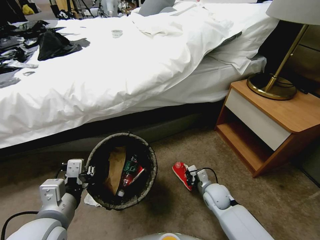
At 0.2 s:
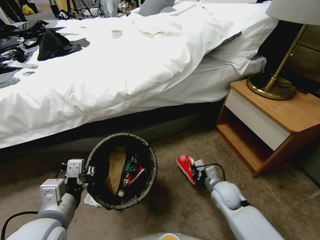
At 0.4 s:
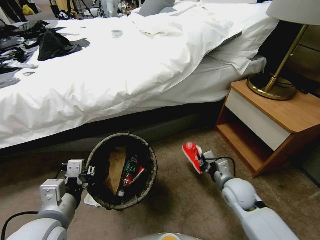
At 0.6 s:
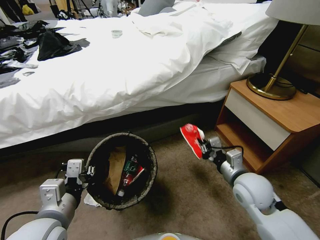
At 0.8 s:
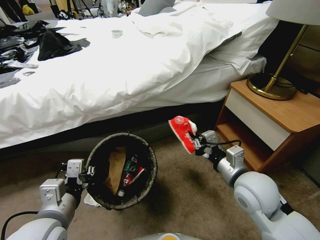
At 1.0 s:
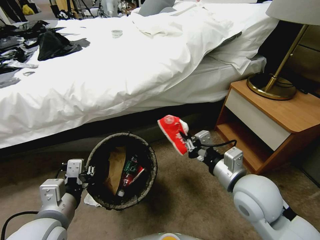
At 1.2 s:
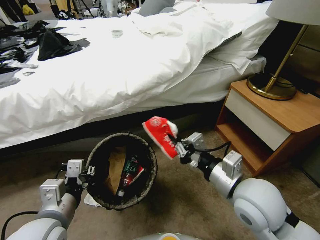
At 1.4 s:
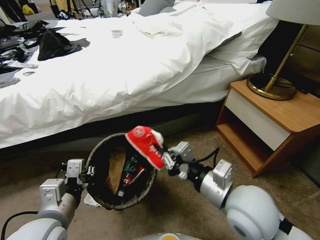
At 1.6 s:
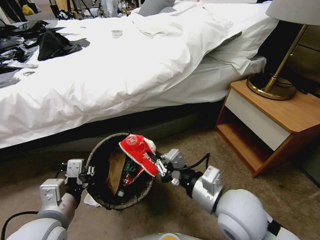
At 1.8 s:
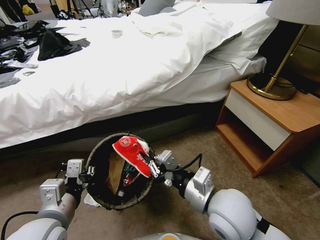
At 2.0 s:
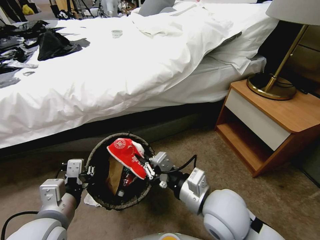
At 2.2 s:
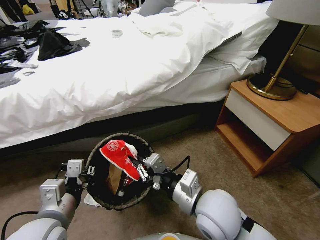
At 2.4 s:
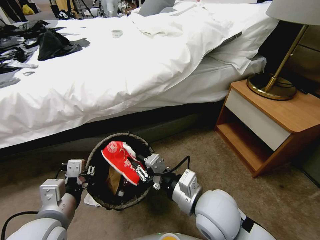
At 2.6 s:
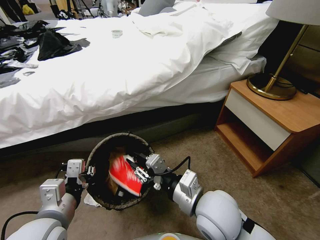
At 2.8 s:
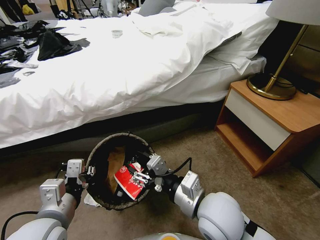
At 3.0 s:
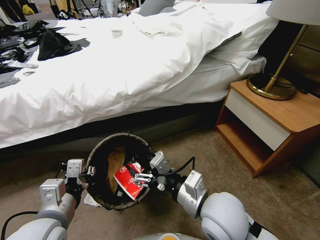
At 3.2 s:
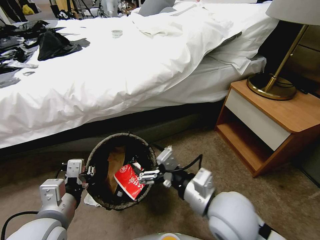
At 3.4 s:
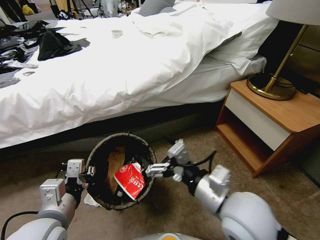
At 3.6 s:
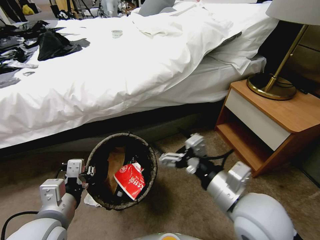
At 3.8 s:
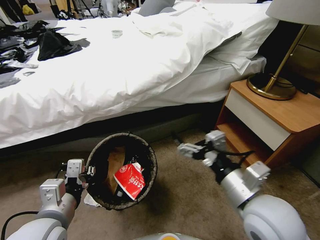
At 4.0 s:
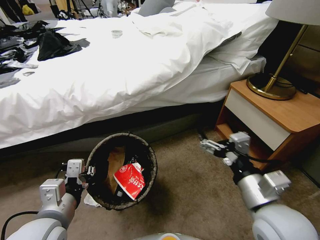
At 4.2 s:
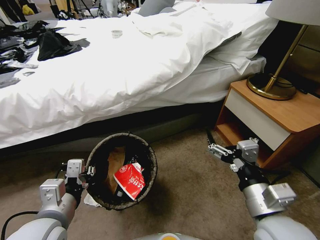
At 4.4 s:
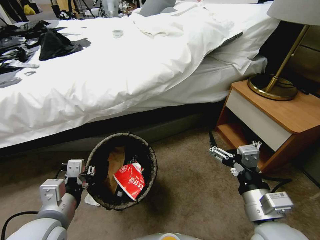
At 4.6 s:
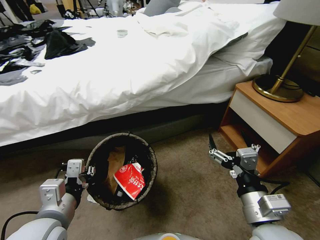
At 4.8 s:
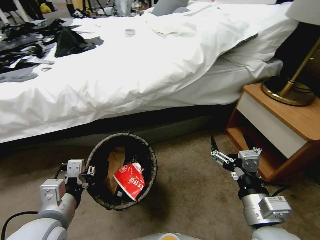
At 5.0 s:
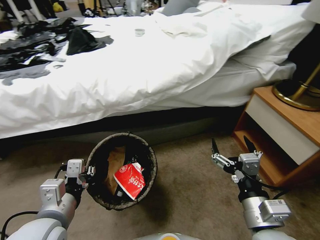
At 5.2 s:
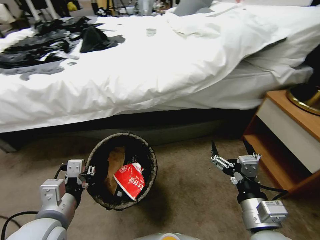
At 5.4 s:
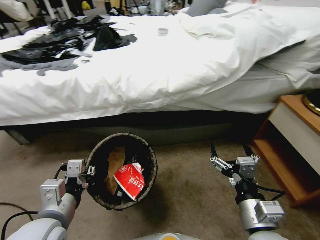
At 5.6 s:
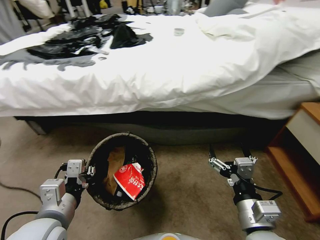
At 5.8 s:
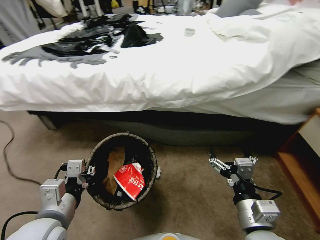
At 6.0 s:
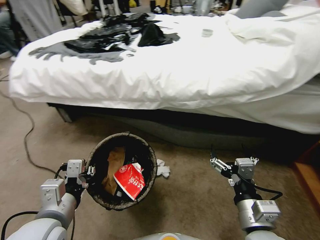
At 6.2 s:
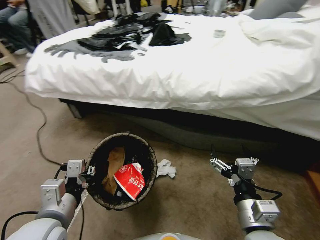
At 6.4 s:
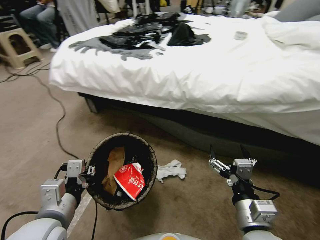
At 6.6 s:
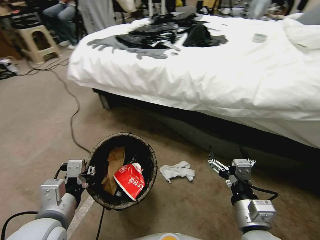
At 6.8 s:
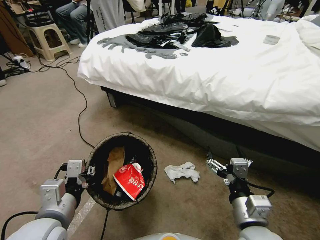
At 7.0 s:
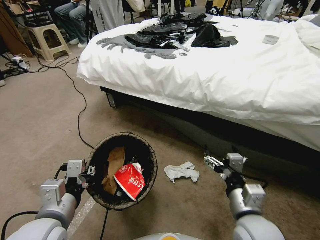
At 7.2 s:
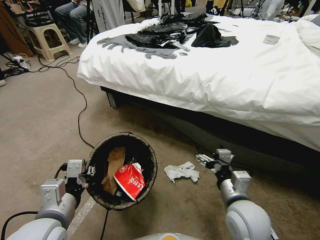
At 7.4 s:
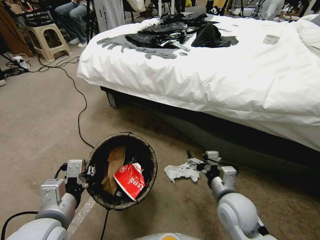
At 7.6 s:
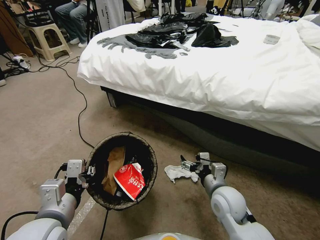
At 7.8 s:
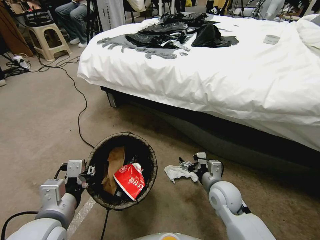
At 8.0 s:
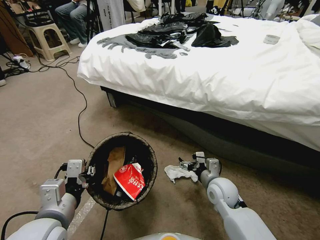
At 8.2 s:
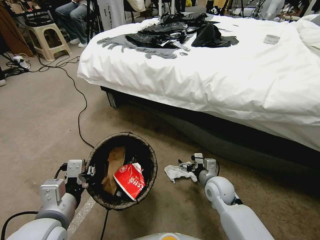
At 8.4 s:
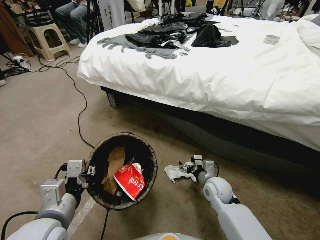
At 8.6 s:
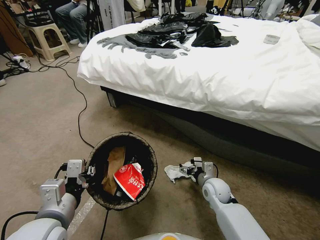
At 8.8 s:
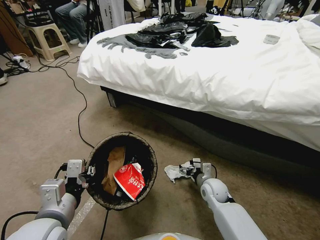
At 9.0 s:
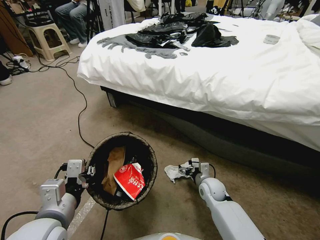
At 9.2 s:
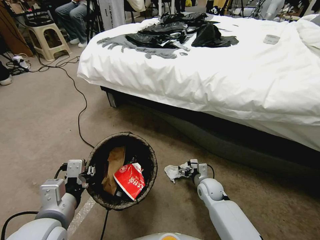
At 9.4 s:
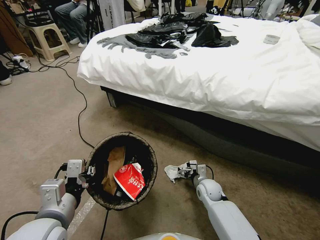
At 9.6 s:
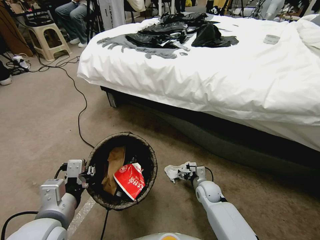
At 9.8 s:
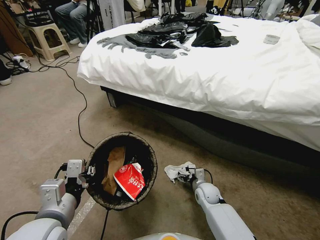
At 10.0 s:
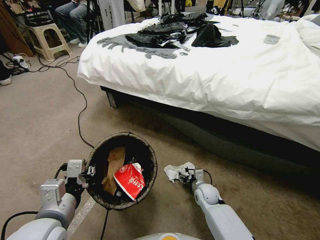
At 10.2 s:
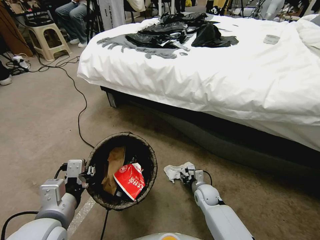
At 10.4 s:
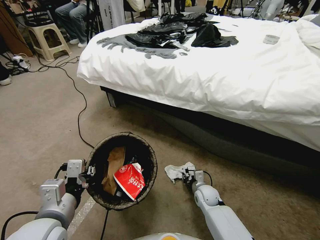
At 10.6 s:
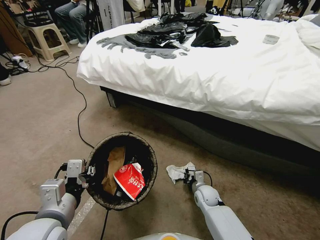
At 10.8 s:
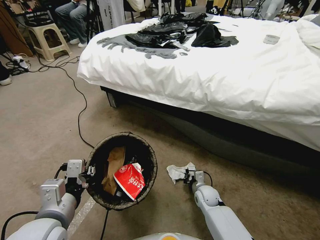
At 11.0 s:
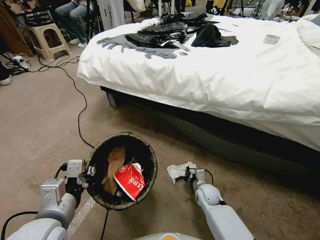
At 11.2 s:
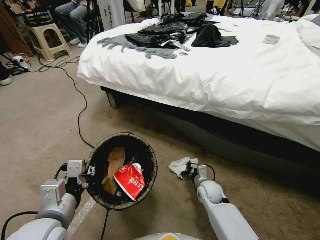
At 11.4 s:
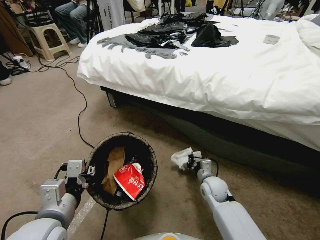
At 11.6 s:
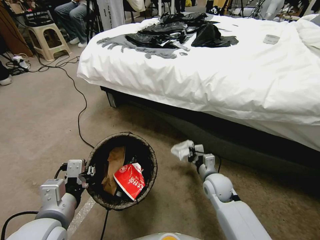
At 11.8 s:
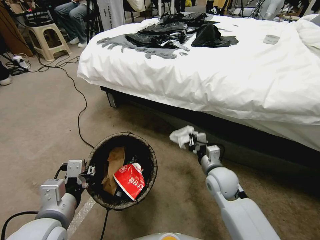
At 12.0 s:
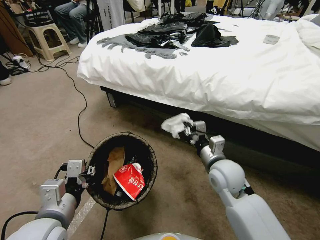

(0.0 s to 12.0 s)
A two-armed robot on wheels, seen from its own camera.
Task of the whole recording: Pick up the trash bin, then pick up the garbage from the floor and place it into the trash bin.
0.0 s - 1.6 s: The right gripper heads upward and backward, covering roughly 30 cm.
1.6 s - 3.0 s: The right gripper opens.
3.0 s - 4.4 s: The right gripper heads to the right and backward, covering about 10 cm.
6.0 s - 7.6 s: The right gripper is displaced forward and downward by approximately 15 cm.
7.6 s - 9.0 s: The right gripper shifts approximately 15 cm downward and forward.
9.0 s - 10.4 s: The right gripper heads downward, covering approximately 5 cm, and closes up.
10.4 s - 12.0 s: The right gripper heads upward, covering about 25 cm.

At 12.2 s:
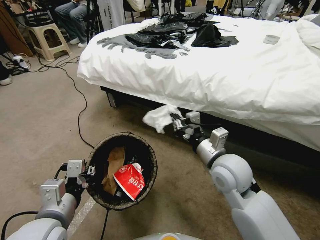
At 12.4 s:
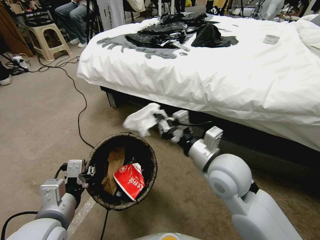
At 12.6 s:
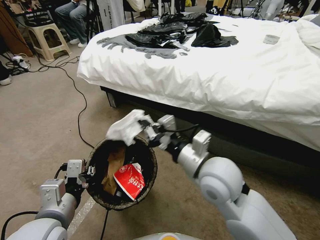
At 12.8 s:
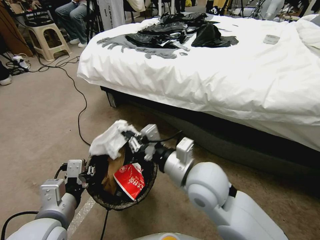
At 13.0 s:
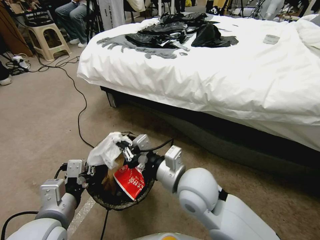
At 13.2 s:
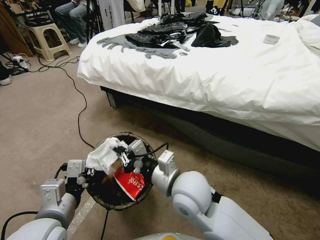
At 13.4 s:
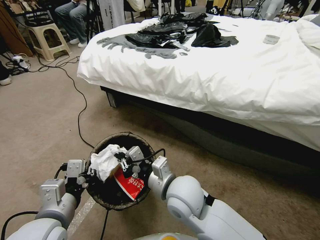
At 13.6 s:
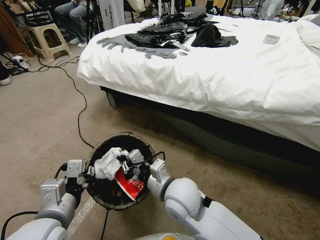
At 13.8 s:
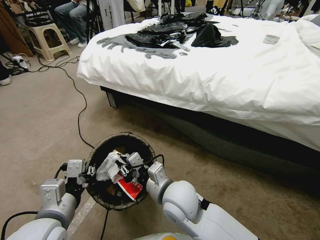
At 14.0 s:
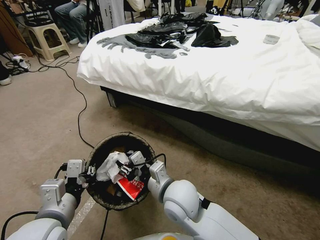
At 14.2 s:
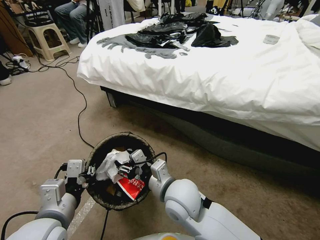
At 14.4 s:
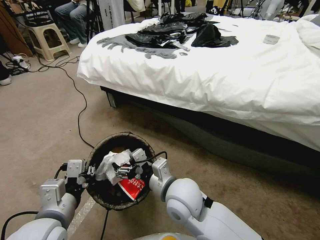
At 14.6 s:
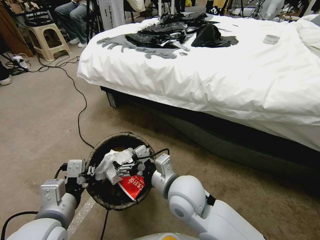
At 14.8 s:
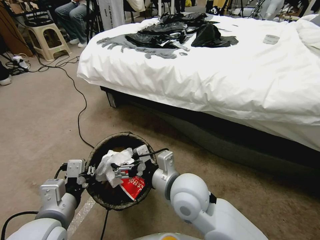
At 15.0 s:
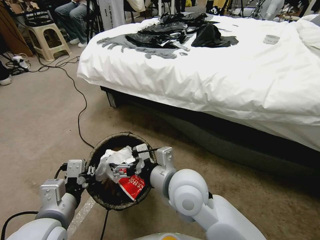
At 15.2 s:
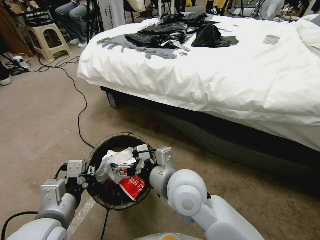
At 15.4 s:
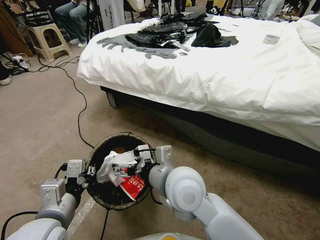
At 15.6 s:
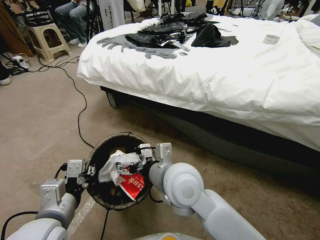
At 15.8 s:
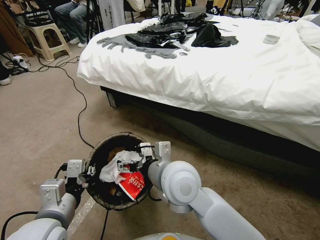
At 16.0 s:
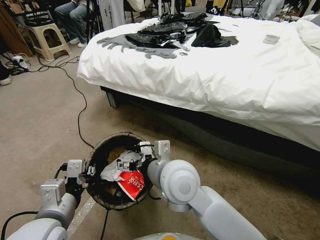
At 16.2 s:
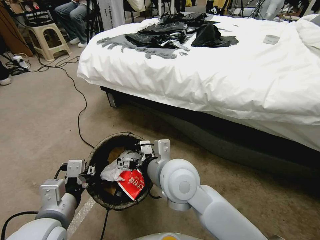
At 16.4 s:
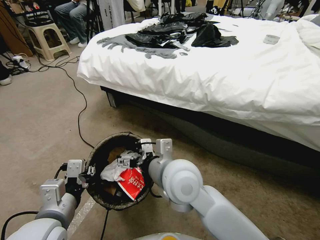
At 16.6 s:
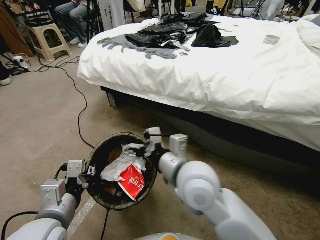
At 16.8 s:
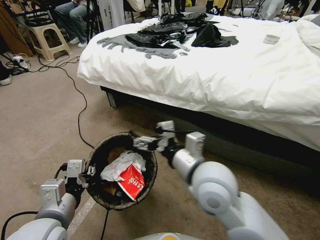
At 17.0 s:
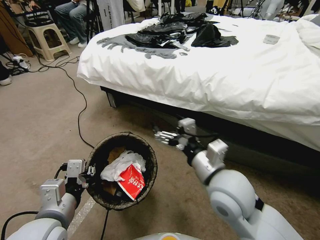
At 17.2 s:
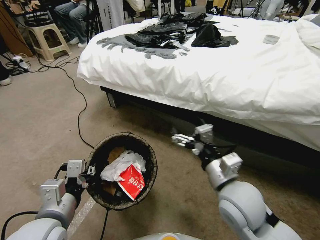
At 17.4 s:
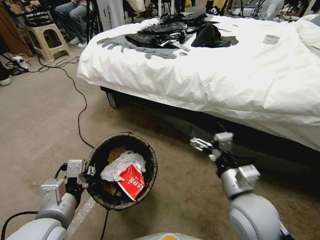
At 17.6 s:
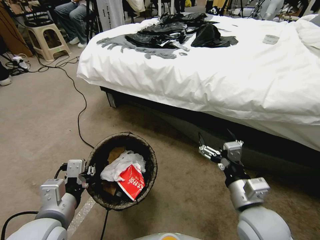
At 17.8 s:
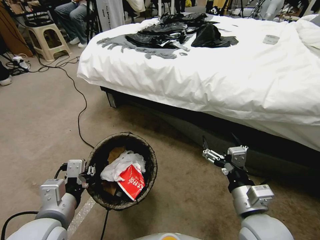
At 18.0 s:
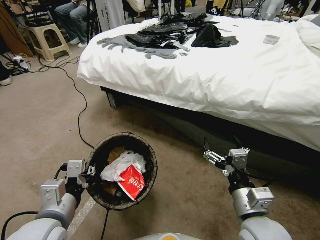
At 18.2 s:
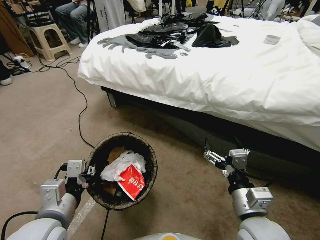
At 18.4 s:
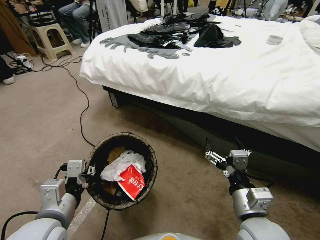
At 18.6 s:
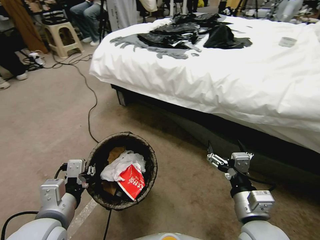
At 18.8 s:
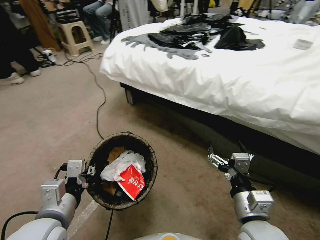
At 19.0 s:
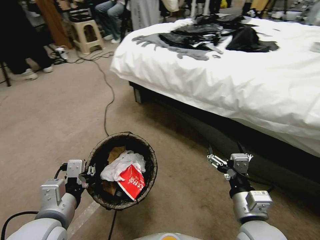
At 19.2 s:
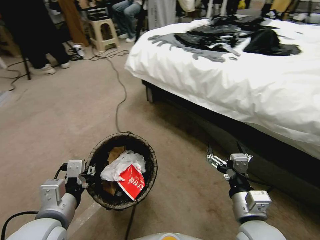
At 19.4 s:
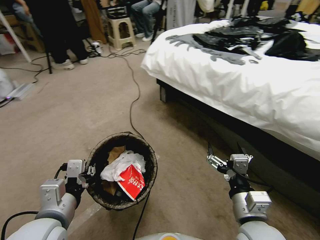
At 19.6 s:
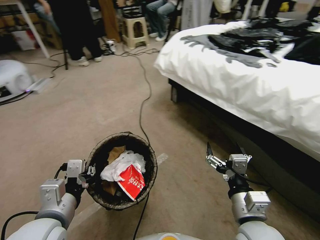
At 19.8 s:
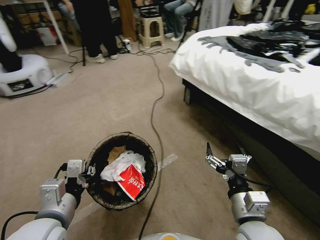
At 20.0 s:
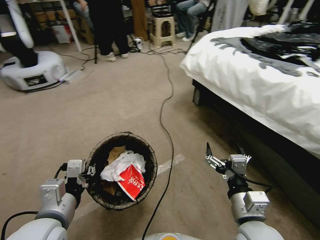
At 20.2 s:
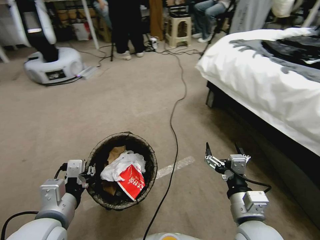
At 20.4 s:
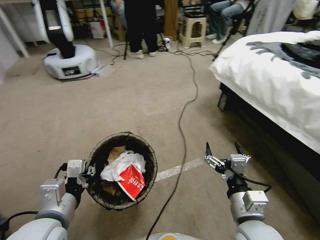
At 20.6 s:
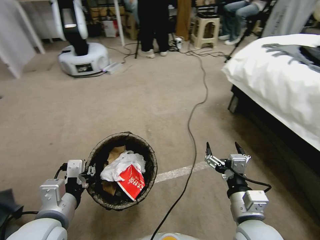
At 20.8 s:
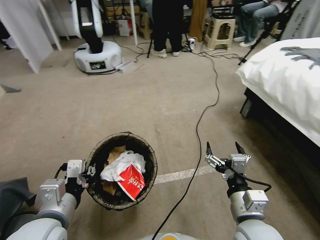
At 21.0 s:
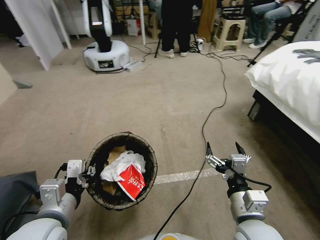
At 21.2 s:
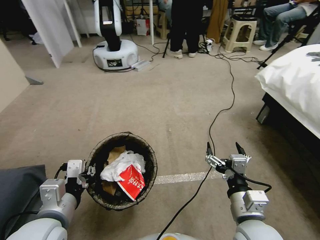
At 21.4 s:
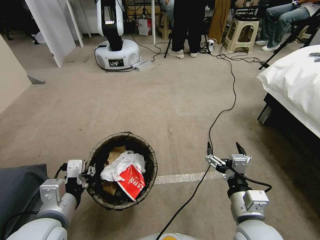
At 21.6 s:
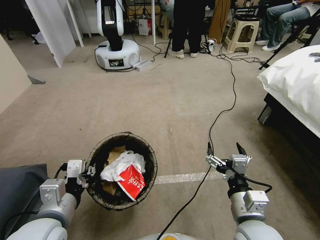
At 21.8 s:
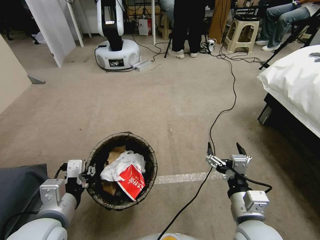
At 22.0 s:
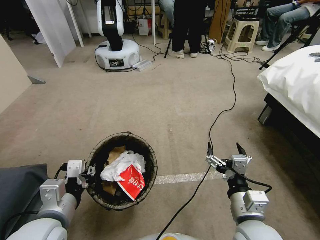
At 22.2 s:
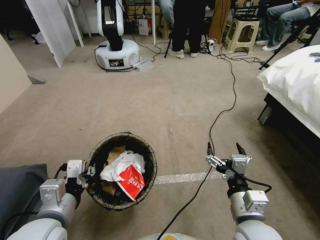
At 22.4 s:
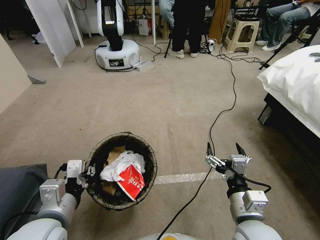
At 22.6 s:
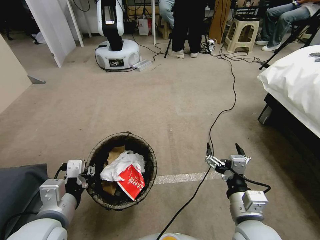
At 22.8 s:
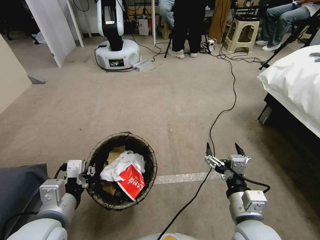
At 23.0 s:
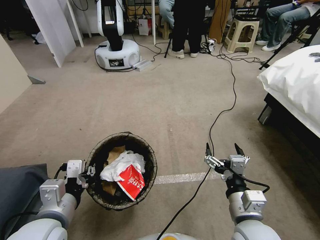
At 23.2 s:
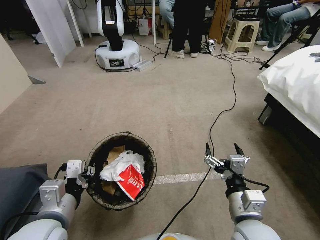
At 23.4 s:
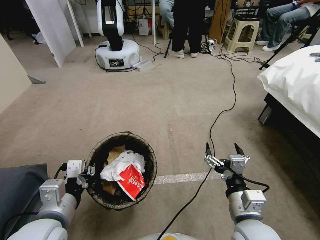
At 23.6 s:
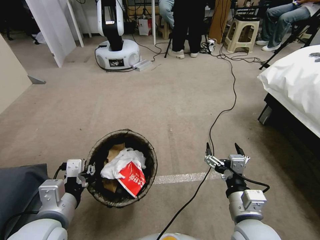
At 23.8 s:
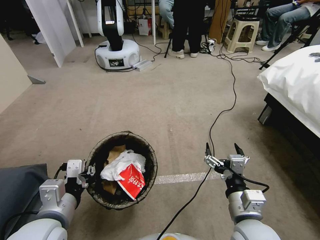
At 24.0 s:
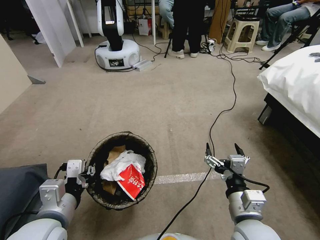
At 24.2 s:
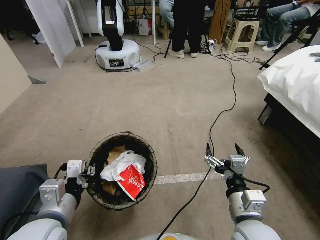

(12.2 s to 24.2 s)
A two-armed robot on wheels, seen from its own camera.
Task of the whole recording: Pick up the trash bin, then pick up the garbage from the floor and place it into the trash bin.
12.2 s - 13.8 s: The right gripper shifts approximately 15 cm to the left and downward.
13.8 s - 15.2 s: The right gripper goes roughly 5 cm upward, and opens up.
15.2 s - 16.6 s: There are only small adjustments of the grippers.
16.6 s - 18.2 s: The right gripper travels to the right, backward and downward by roughly 20 cm.
21.2 s - 24.2 s: The two grippers keep their place.
